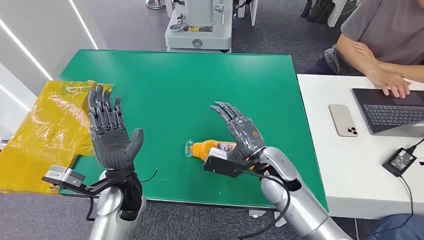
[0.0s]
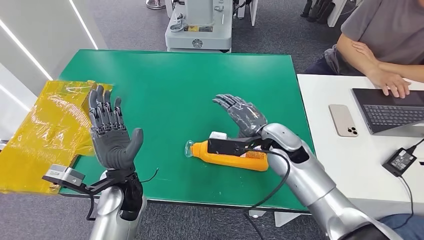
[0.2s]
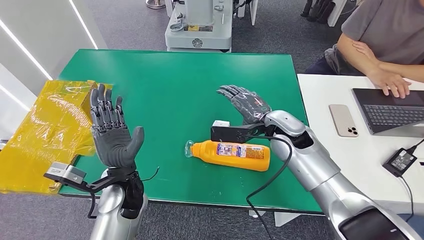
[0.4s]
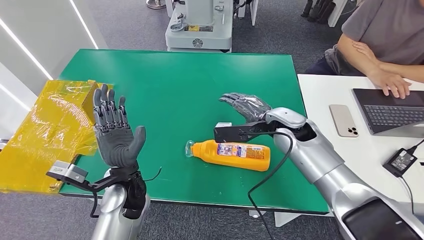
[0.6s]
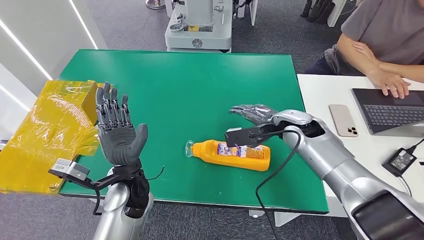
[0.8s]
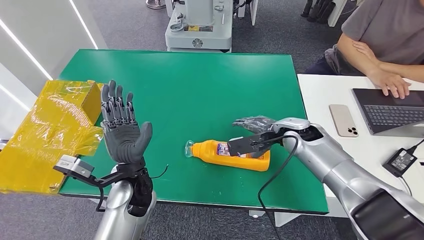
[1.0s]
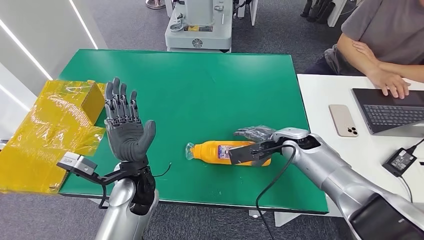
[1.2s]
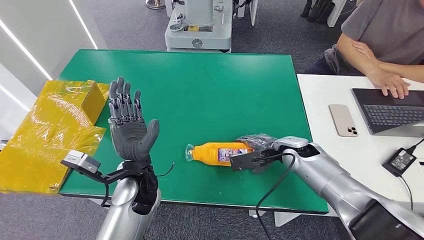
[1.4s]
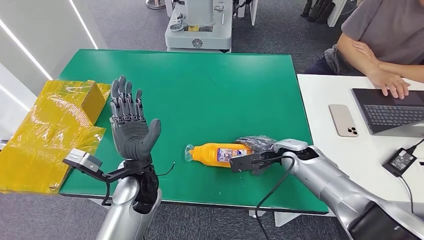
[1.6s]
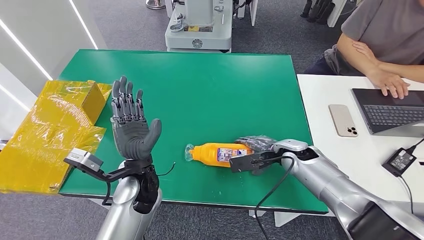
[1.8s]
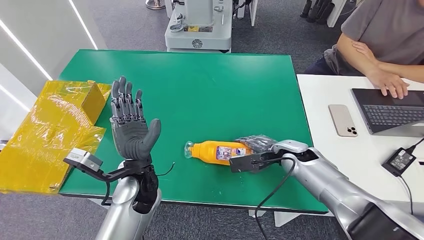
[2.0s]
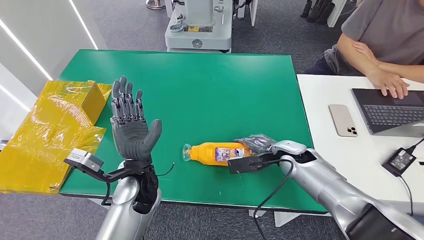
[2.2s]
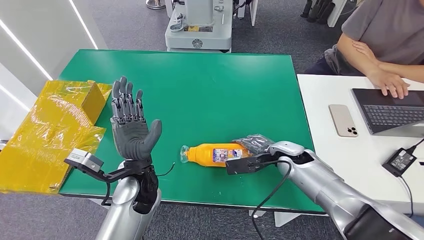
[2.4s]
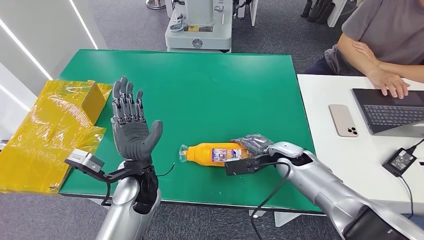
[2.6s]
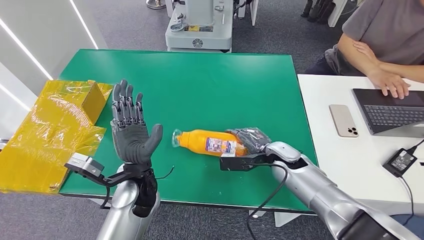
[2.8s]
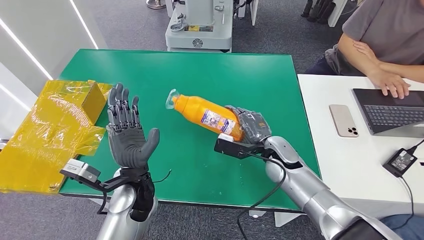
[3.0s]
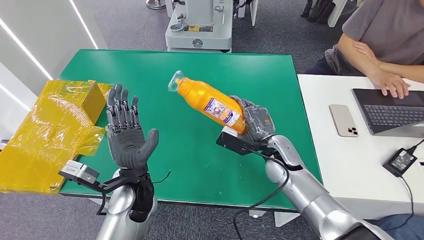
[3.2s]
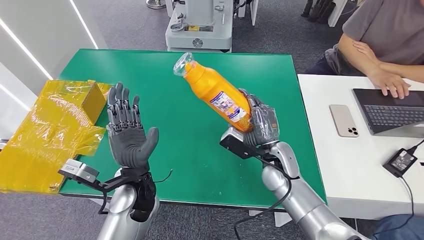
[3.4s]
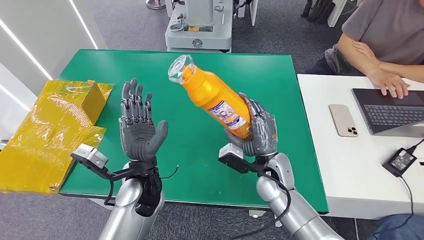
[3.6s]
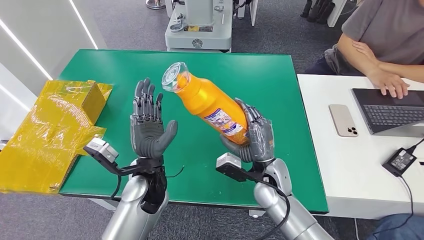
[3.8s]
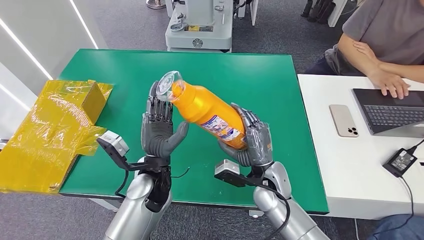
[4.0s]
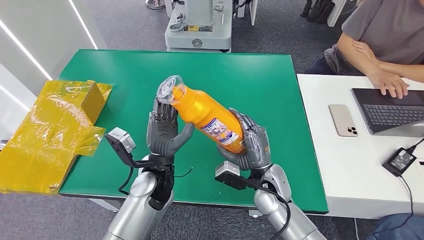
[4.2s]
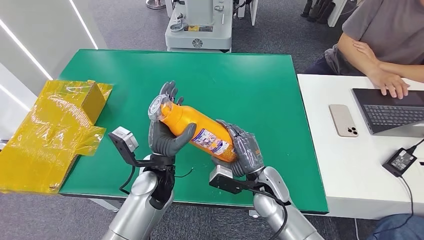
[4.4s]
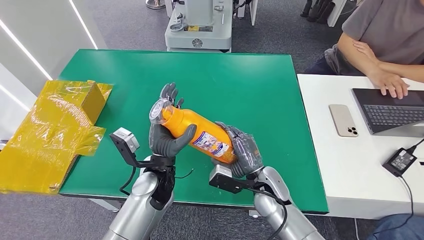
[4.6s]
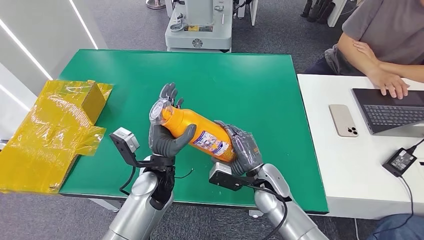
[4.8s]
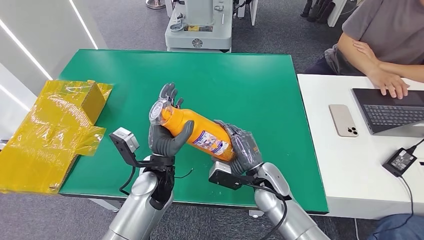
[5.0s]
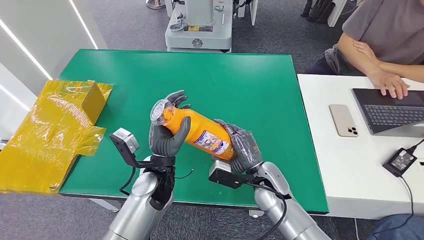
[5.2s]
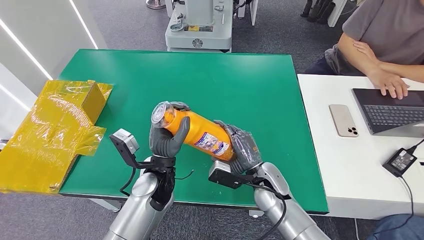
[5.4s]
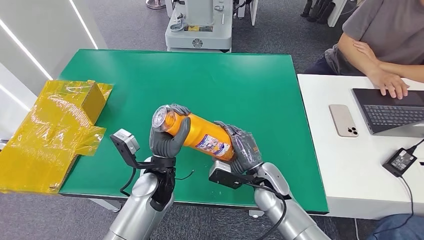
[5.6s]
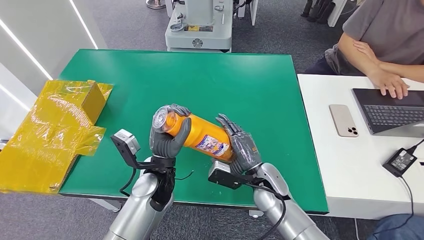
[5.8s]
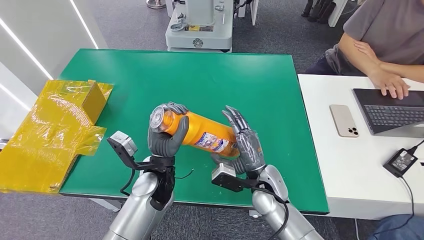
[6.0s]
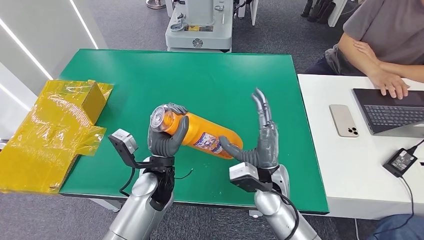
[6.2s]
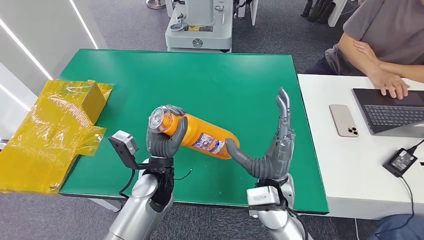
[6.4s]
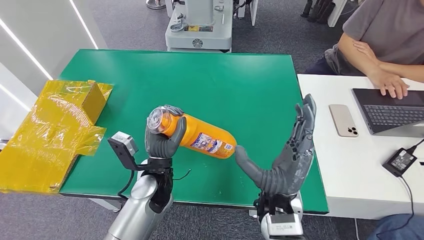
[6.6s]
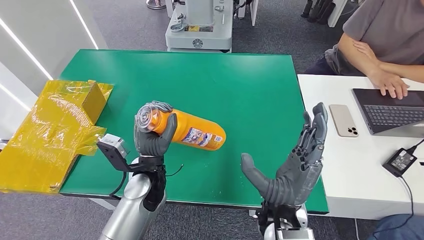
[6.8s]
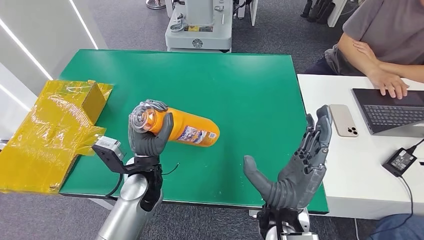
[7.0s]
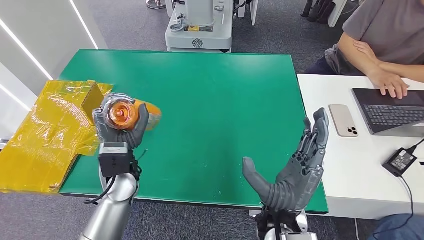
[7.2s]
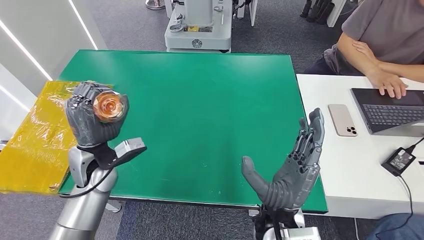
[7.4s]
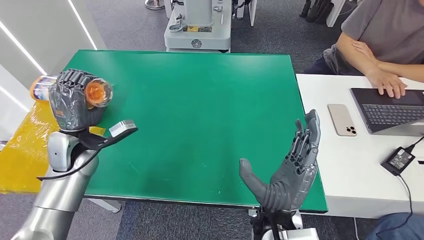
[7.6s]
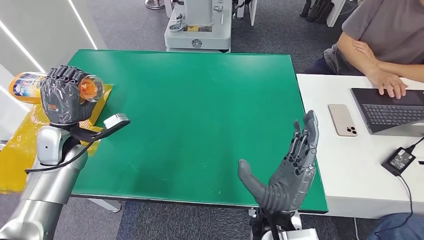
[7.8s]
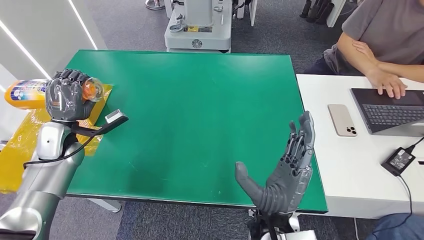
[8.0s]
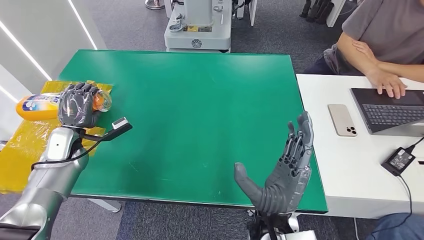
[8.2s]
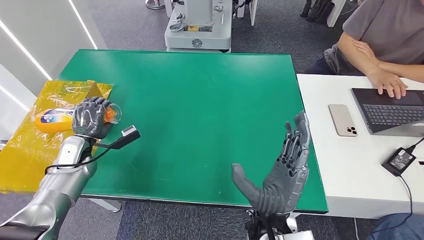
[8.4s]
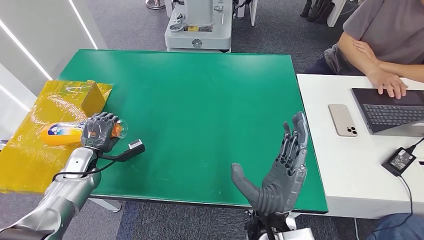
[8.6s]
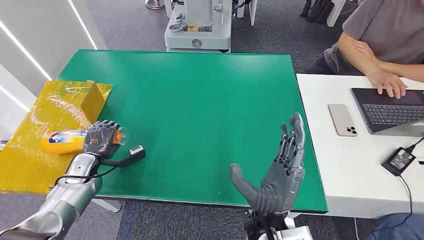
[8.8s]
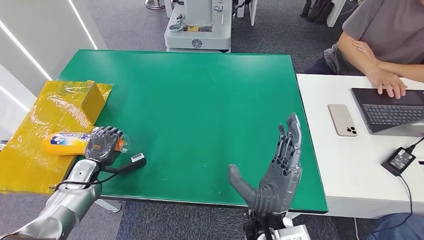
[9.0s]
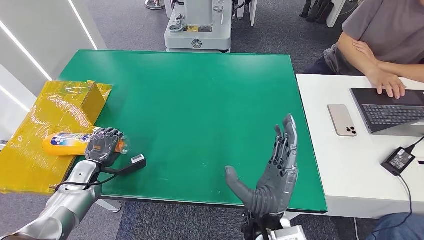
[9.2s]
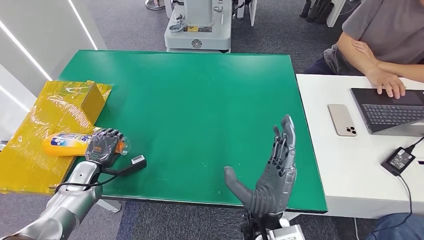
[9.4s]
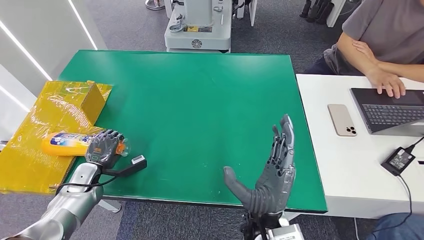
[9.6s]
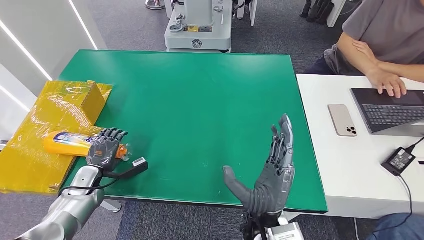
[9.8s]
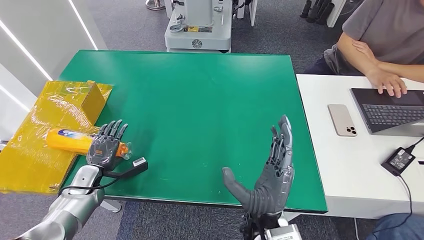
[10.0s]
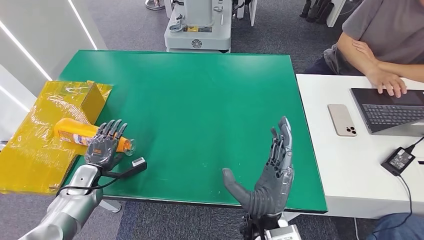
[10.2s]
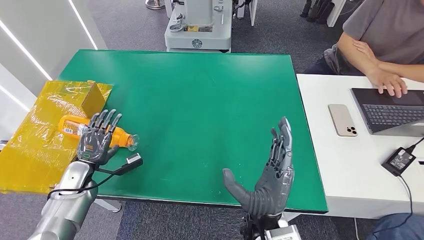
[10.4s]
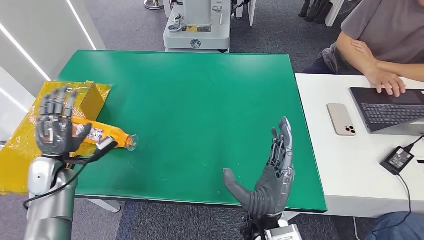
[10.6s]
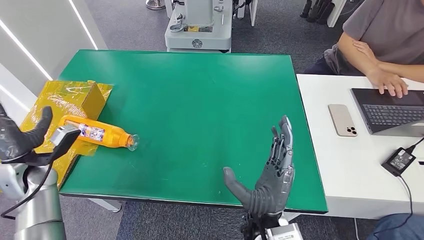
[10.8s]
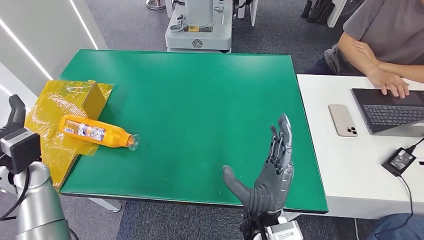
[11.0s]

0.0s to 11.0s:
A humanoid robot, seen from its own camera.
Step, 0.0s to 3.6s: Pick up the bottle from the table.
Step, 5.2s to 11.0s: Turn the bottle to the front side.
1.6s to 3.2s: The right hand goes roughly 5 cm to the left.
3.2s to 4.8s: The right hand shifts some 5 cm backward.
7.8s to 9.4s: The left hand is displaced downward by roughly 15 cm.
9.4s to 11.0s: The left hand shifts roughly 15 cm upward.

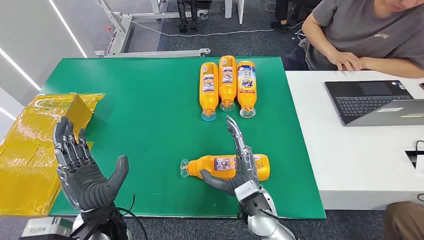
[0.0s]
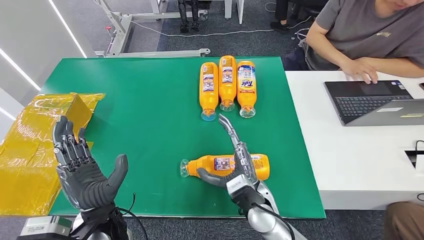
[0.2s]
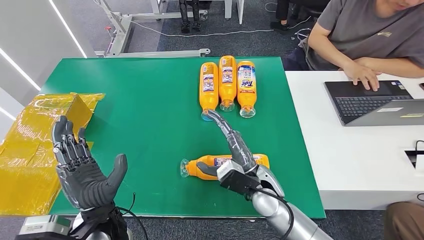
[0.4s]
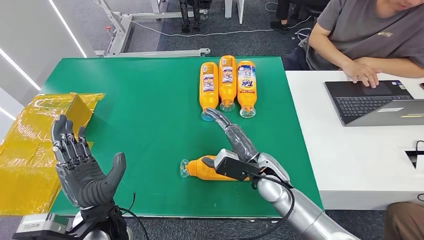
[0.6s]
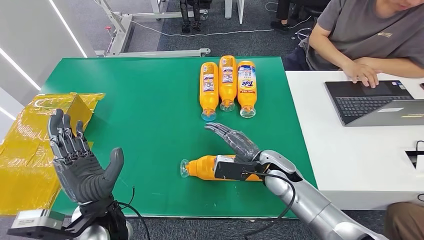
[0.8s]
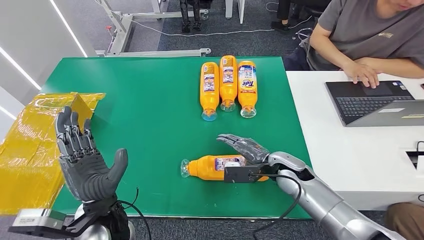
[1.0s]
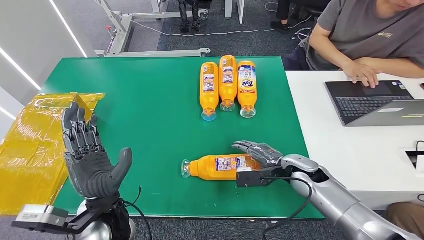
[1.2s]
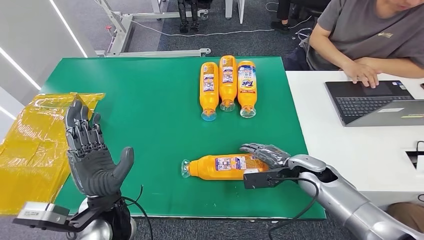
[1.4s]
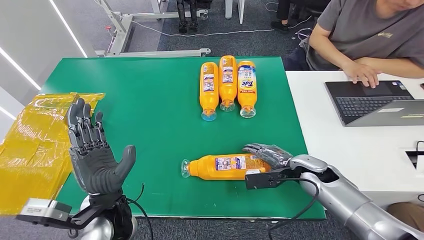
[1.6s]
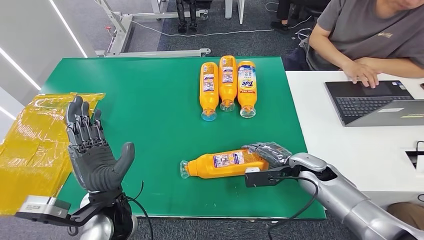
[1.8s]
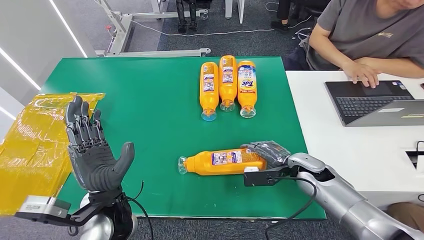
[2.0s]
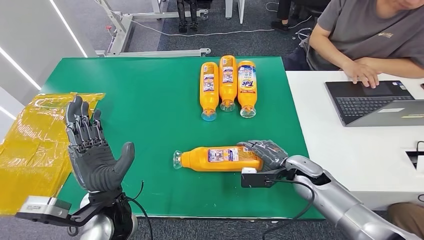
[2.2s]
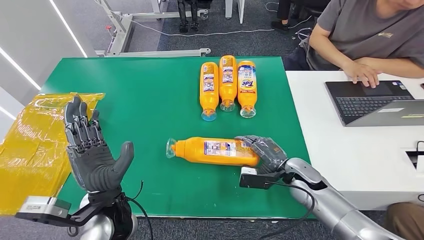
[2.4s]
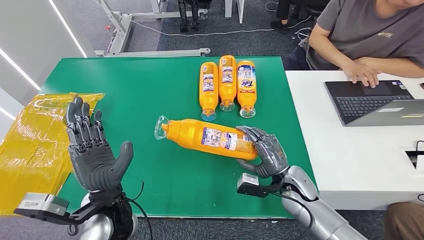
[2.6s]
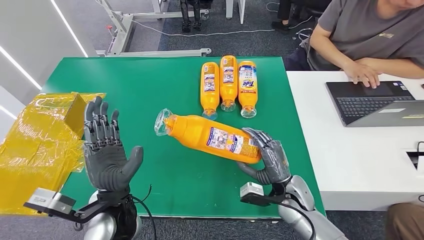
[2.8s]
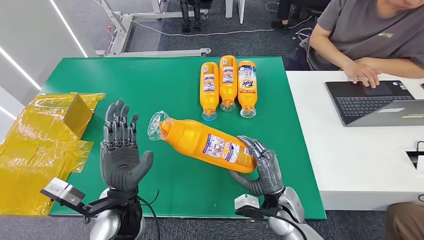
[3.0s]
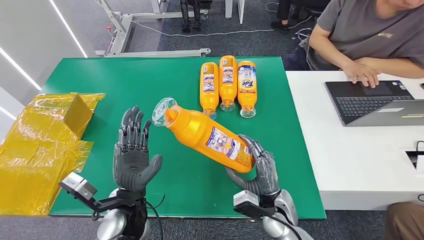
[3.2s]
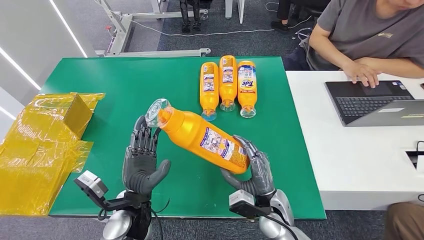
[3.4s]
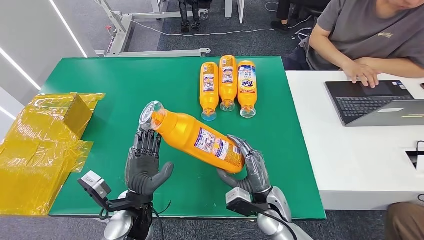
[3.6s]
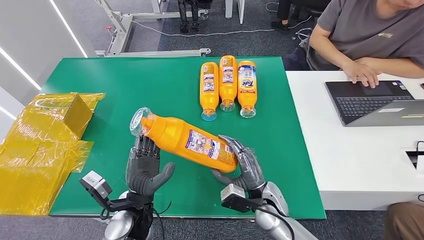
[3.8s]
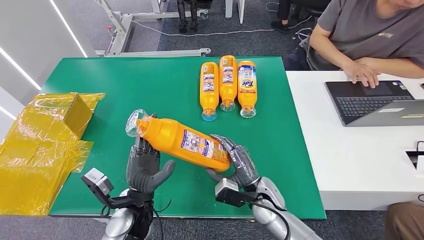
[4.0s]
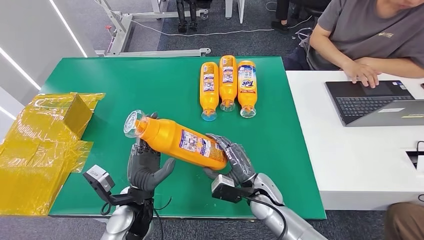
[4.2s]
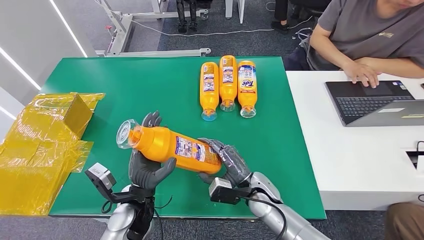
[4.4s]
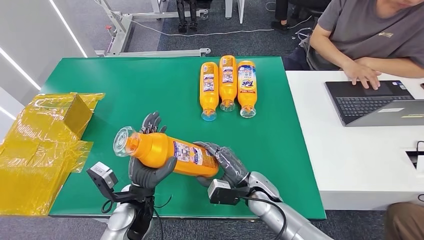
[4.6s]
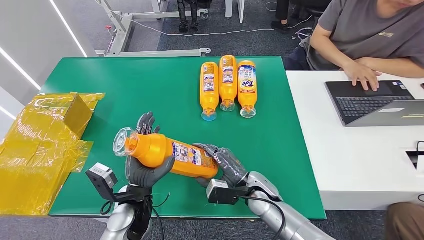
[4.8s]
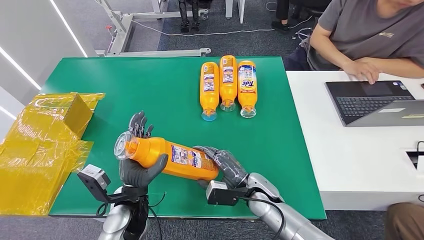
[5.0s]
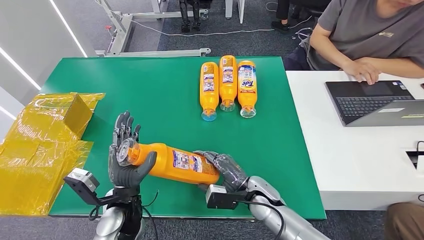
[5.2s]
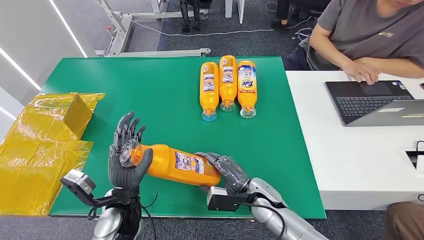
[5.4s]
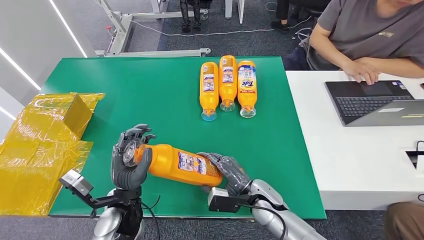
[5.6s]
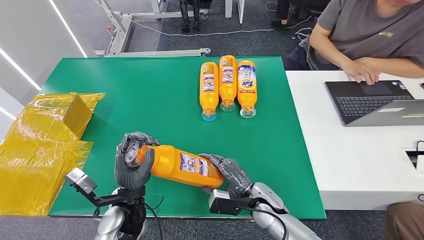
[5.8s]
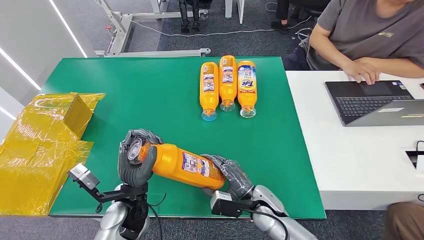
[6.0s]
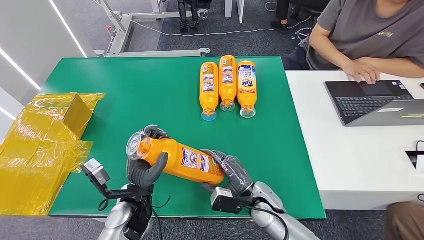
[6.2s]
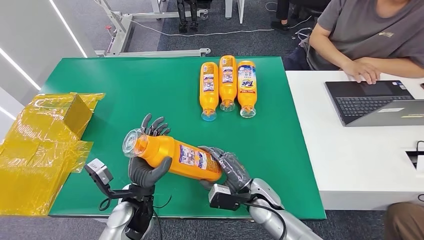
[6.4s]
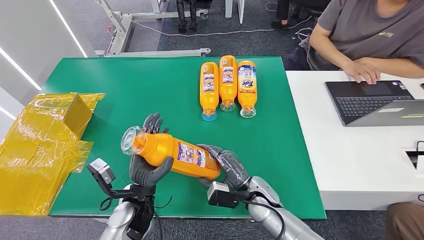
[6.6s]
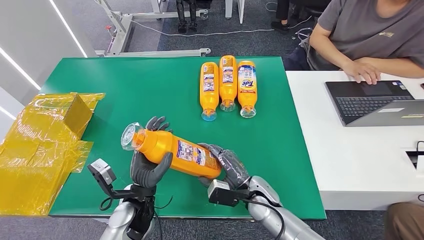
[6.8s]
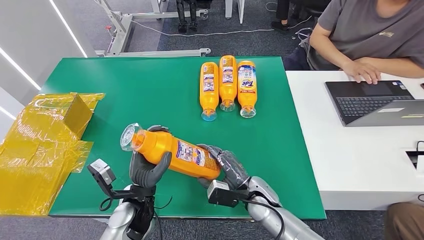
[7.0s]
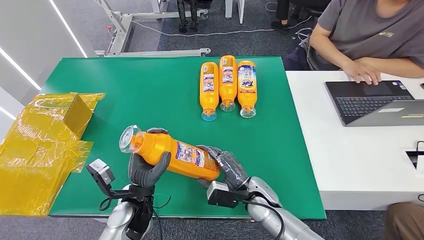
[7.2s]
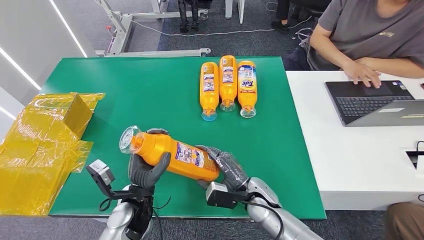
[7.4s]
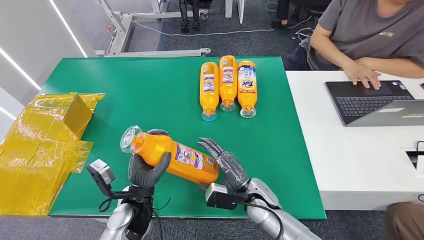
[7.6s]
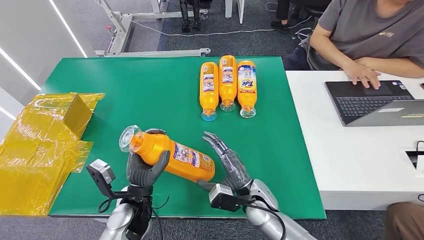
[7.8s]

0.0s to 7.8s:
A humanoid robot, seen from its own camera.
Step, 0.0s to 5.8s: Pick up the bottle from the table.
3.2s to 4.6s: The right hand shifts by some 5 cm.
4.6s to 7.8s: The hands make only small movements.
